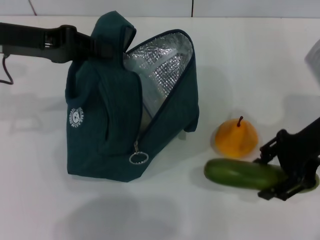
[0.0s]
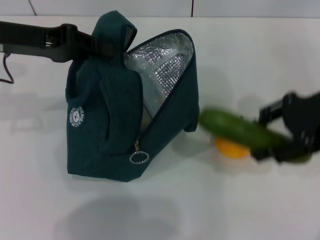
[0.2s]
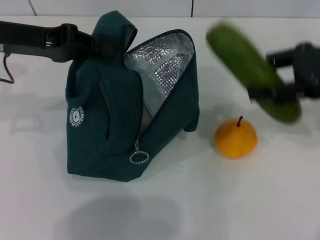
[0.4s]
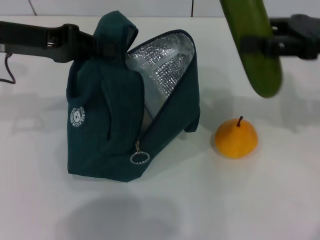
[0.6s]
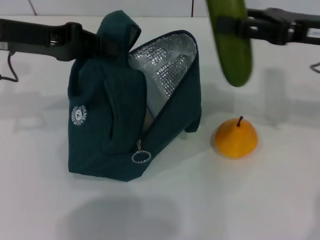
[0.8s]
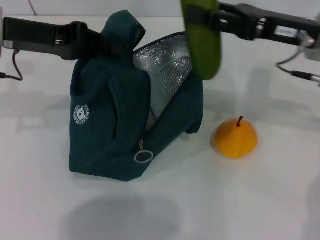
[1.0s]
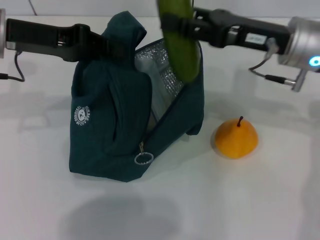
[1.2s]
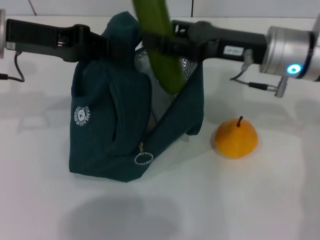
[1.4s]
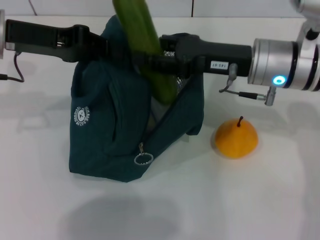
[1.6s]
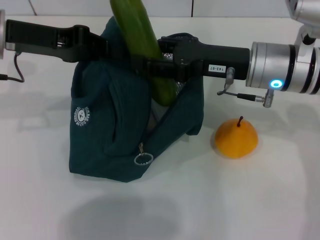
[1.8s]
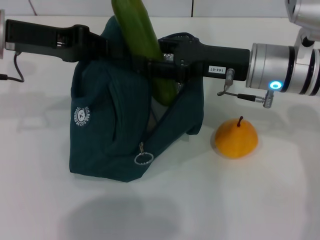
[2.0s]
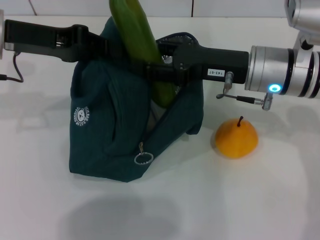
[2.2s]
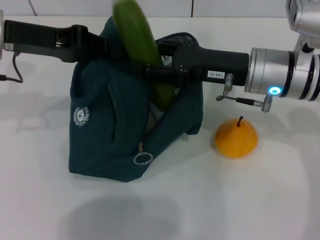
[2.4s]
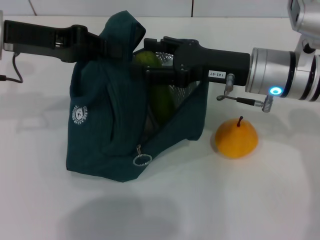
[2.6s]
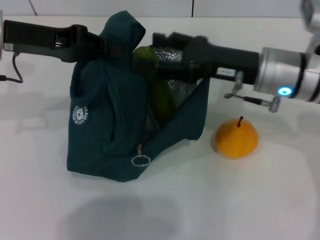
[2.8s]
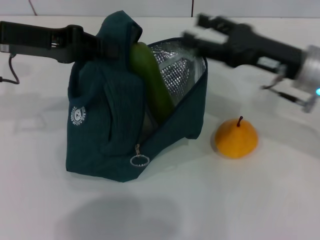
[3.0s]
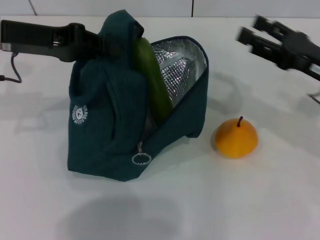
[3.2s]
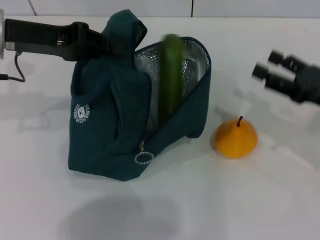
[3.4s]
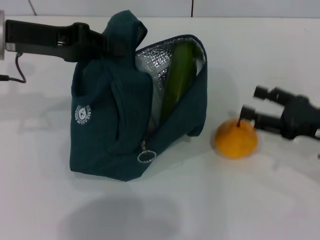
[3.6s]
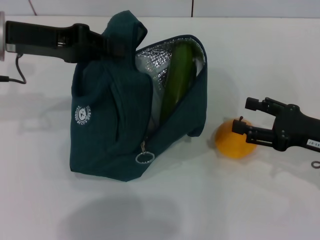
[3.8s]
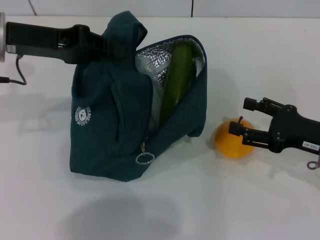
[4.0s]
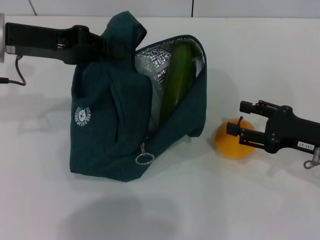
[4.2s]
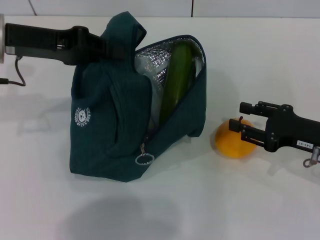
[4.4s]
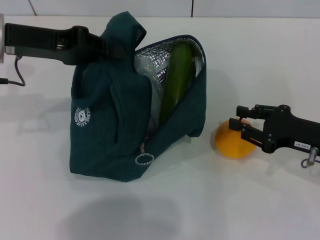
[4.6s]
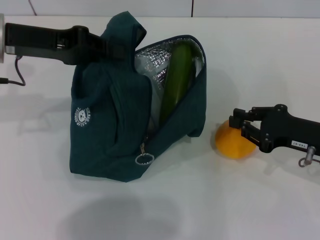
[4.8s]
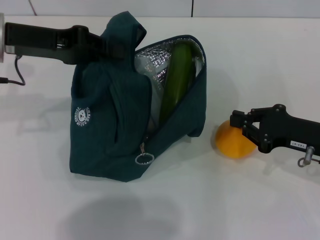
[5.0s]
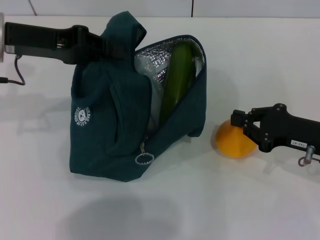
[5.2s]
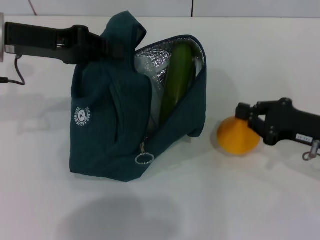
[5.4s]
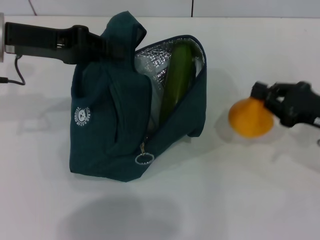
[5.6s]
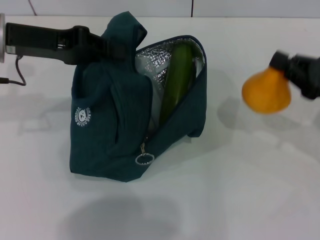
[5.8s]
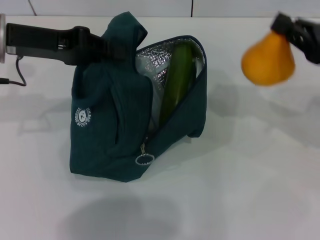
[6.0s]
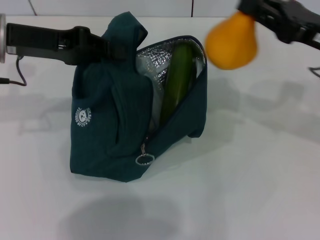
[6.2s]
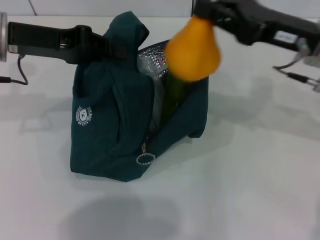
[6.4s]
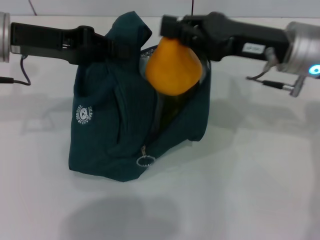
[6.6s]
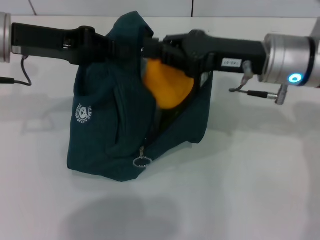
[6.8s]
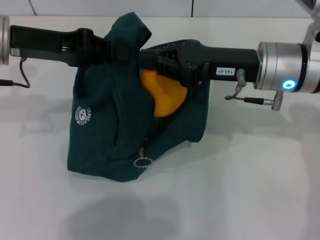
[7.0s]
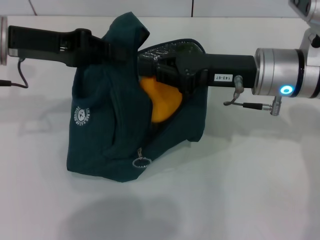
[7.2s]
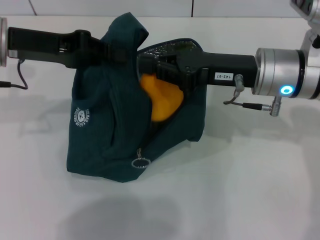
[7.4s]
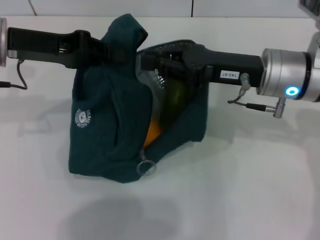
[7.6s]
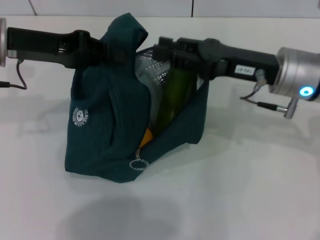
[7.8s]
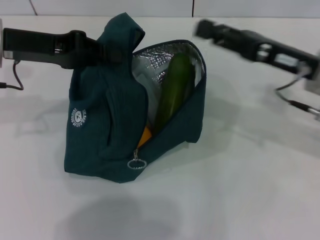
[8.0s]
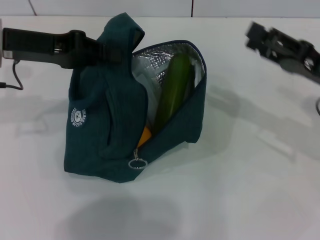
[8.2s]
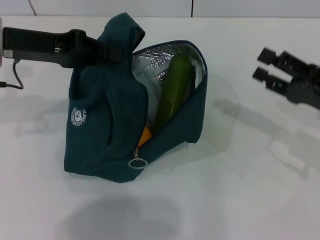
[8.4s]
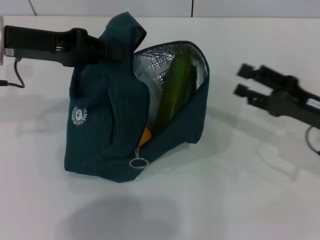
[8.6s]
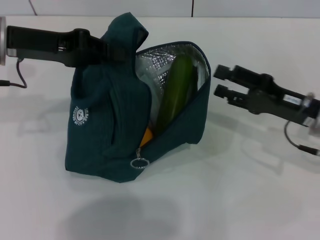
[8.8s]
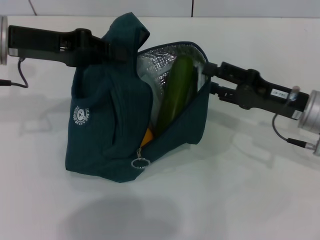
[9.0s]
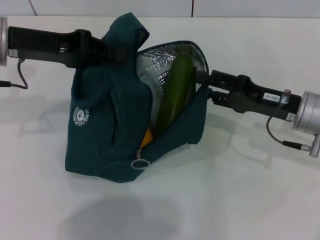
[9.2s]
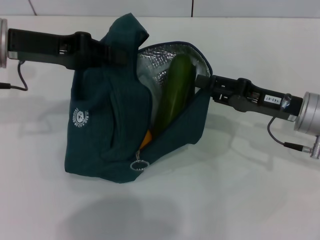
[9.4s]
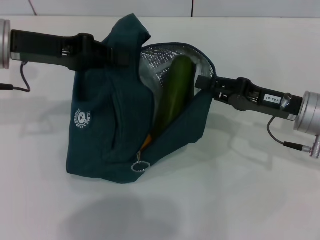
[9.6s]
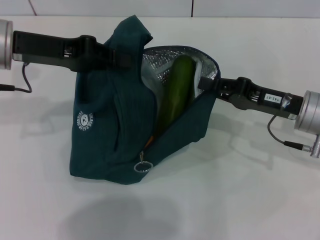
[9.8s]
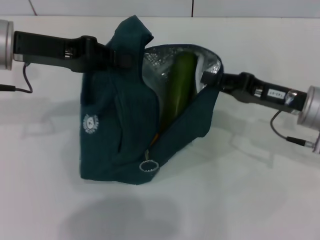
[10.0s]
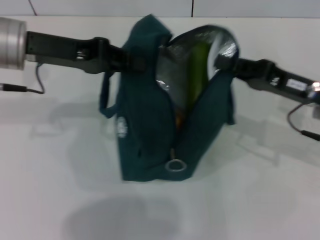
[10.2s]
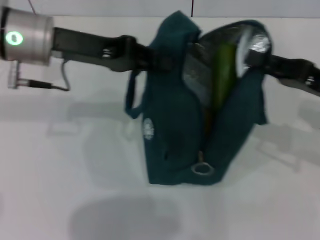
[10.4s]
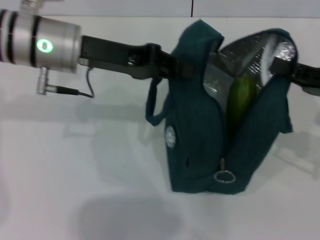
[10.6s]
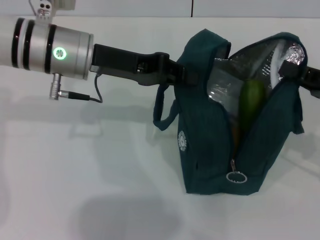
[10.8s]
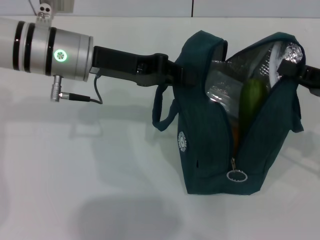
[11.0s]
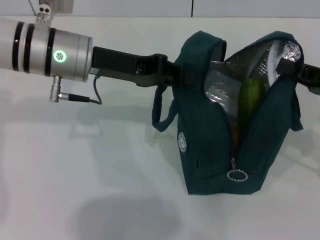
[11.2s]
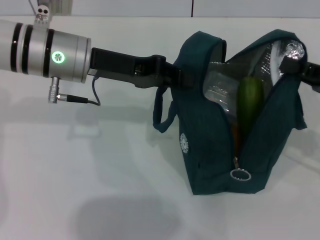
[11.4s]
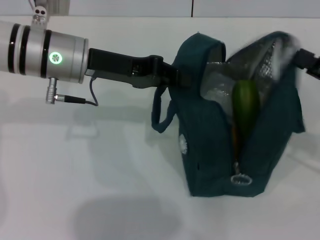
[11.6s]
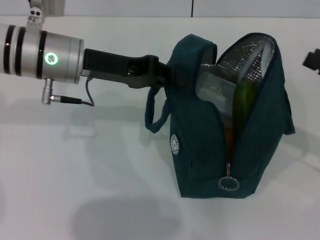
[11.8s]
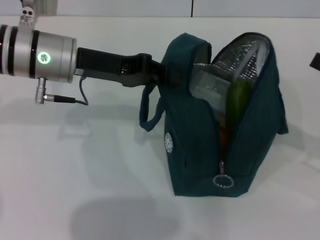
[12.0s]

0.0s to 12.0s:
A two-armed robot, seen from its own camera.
Step, 0.0s to 3.0s: Put the cucumber into the lunch bag with your right hand.
Step, 3.2s to 4.8s: Grab the pear with your right hand.
Step, 8.2s to 11.6s: Hold the lunch bag with your right hand.
0.0s to 1.6s: The right gripper heads to the left, covering roughly 10 cm.
1.6s to 3.0s: The right gripper travels to the right by some 5 cm.
3.0s to 4.4s: The right gripper shifts about 10 cm downward, to the right and backward.
4.4s to 6.0s: The right gripper is displaced upward by some 10 cm, and closes up.
6.0s to 7.6s: The right gripper heads to the left, covering about 15 cm.
7.6s to 9.0s: The right gripper travels to the right and downward by approximately 10 cm, and opens its fingers.
9.0s to 10.4s: The right gripper ends up about 5 cm from where it was, and closes. The left gripper goes approximately 5 cm to the right.
10.4s to 12.0s: The right gripper shifts approximately 10 cm to the right, and opens up.

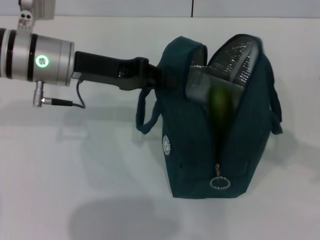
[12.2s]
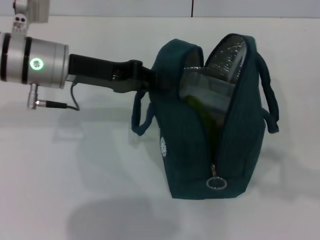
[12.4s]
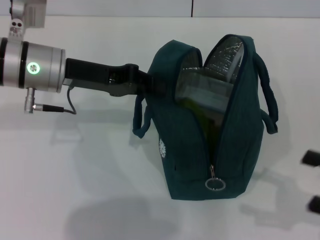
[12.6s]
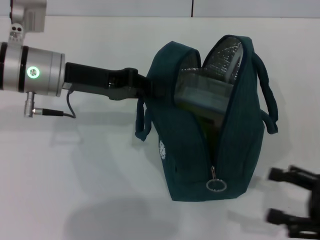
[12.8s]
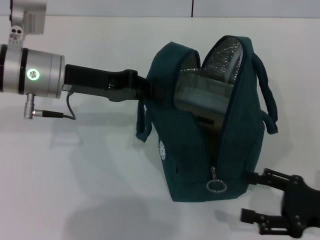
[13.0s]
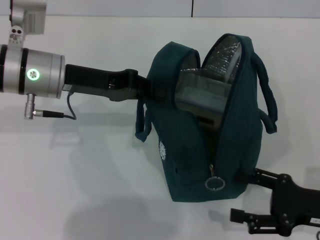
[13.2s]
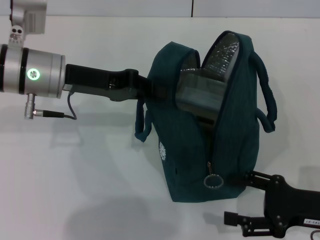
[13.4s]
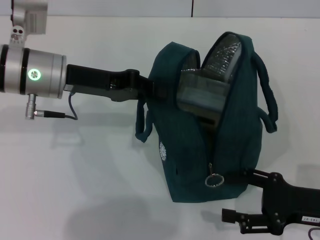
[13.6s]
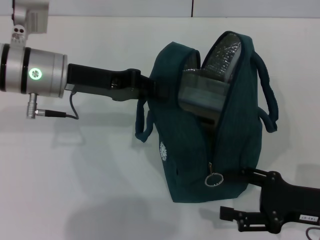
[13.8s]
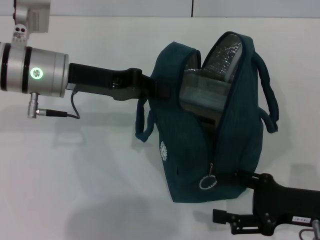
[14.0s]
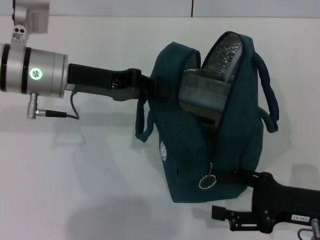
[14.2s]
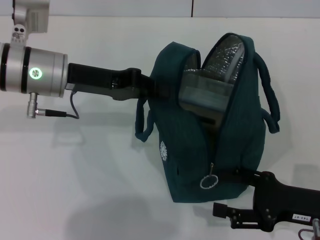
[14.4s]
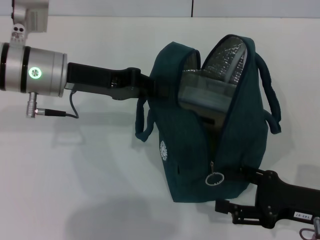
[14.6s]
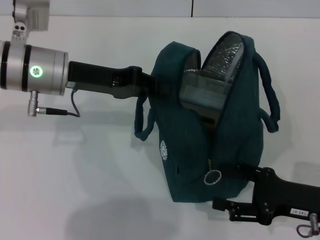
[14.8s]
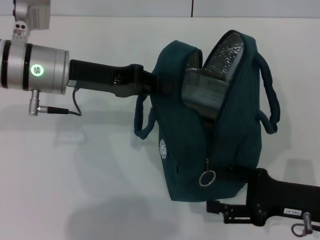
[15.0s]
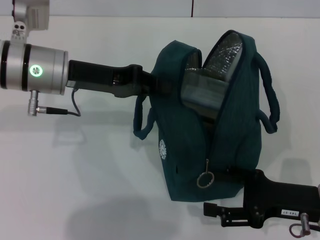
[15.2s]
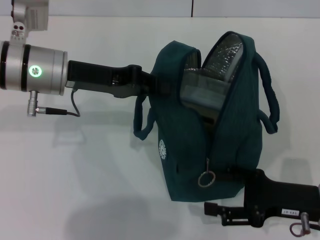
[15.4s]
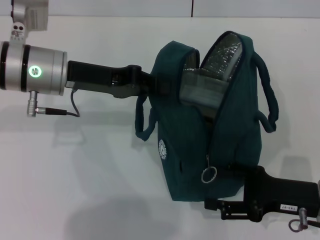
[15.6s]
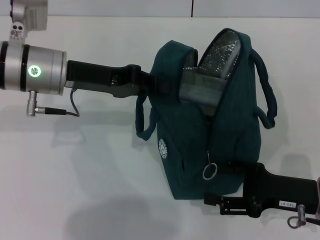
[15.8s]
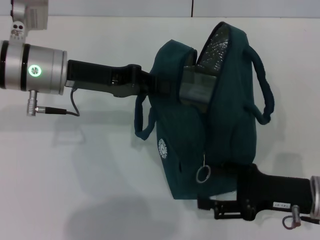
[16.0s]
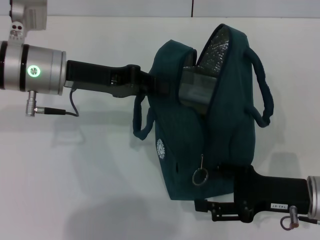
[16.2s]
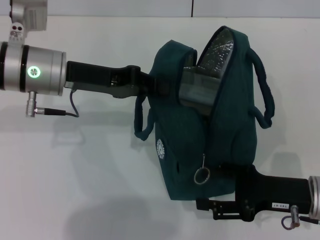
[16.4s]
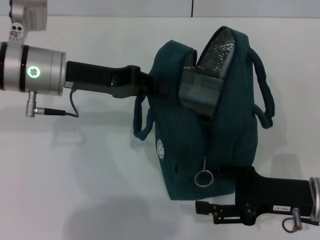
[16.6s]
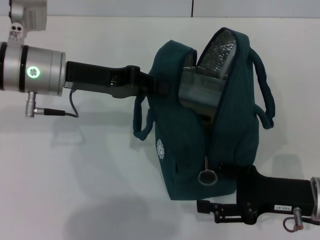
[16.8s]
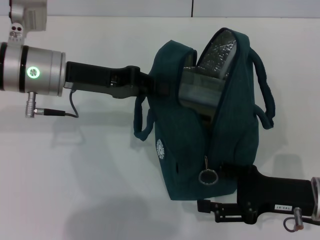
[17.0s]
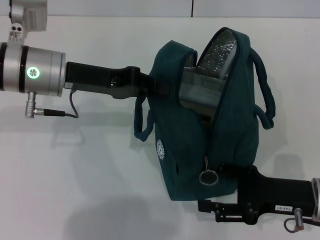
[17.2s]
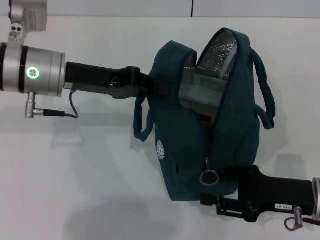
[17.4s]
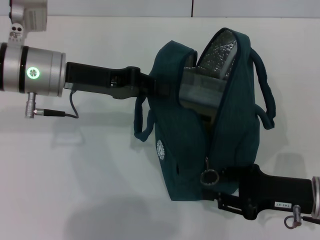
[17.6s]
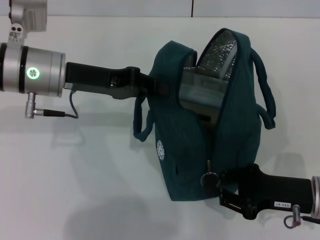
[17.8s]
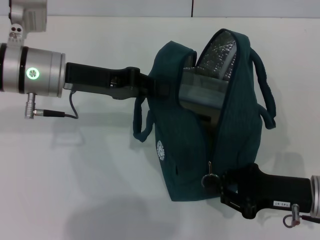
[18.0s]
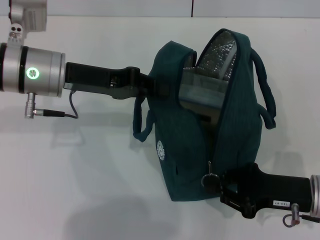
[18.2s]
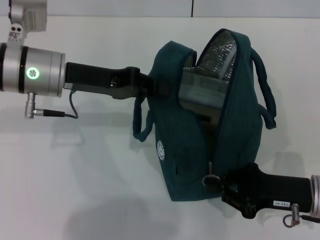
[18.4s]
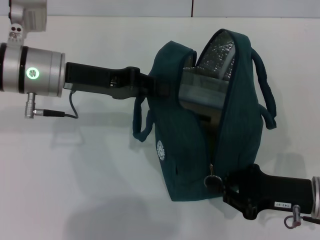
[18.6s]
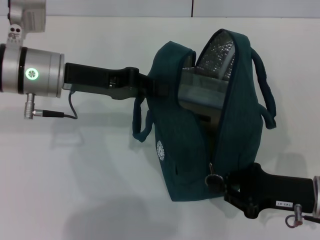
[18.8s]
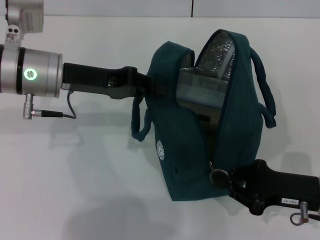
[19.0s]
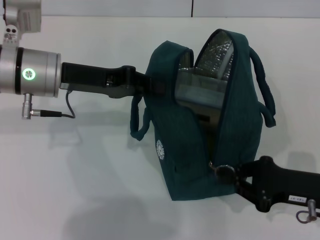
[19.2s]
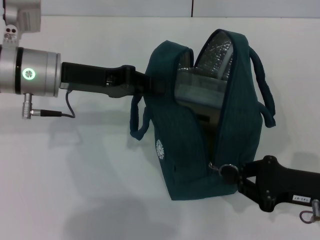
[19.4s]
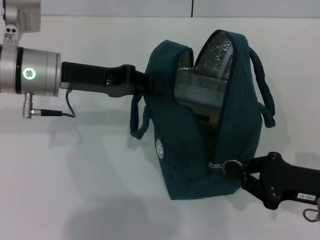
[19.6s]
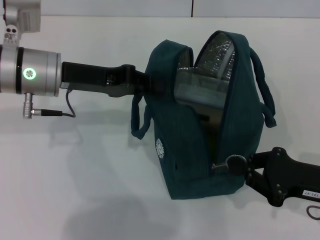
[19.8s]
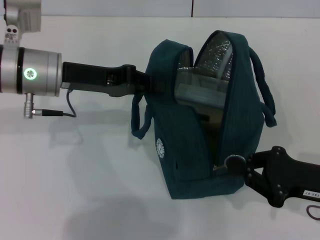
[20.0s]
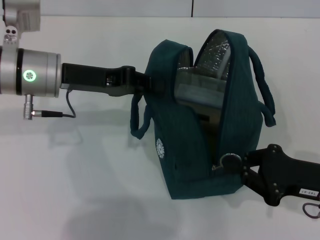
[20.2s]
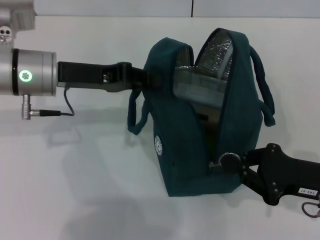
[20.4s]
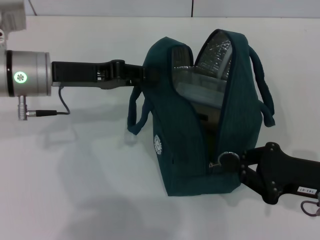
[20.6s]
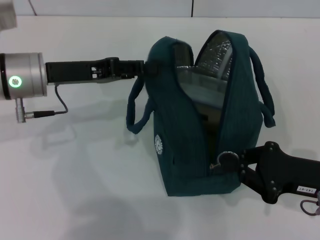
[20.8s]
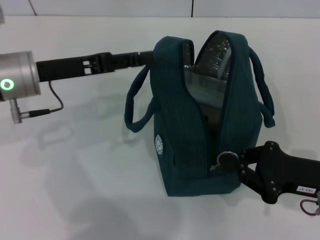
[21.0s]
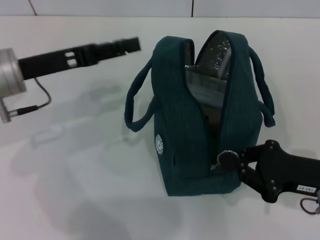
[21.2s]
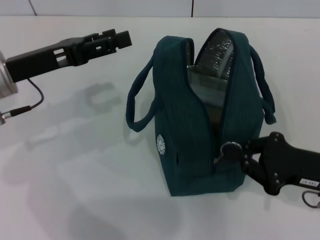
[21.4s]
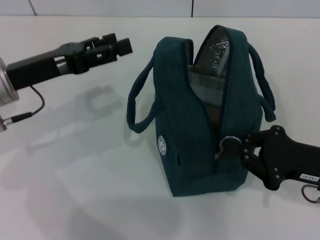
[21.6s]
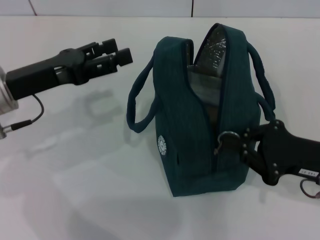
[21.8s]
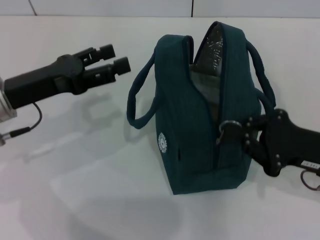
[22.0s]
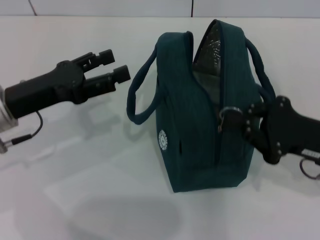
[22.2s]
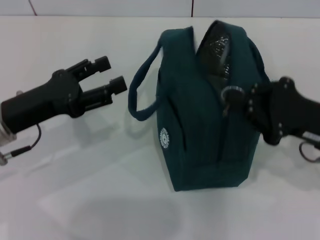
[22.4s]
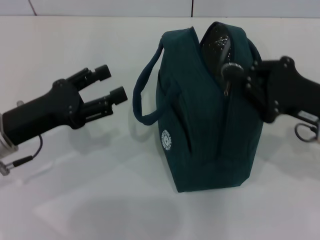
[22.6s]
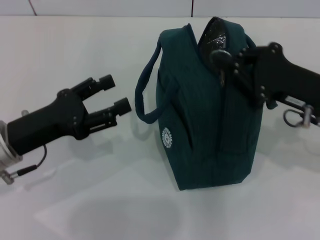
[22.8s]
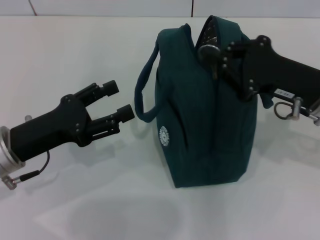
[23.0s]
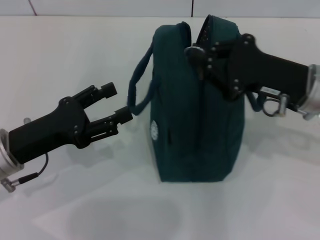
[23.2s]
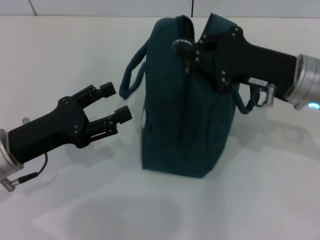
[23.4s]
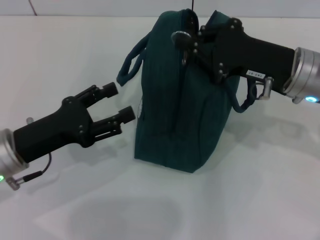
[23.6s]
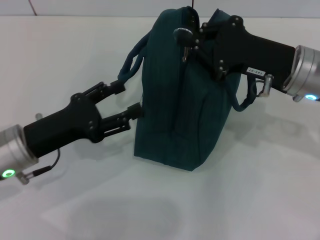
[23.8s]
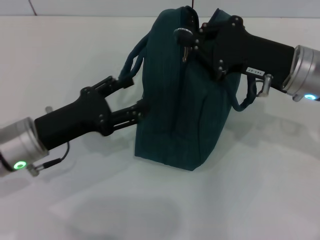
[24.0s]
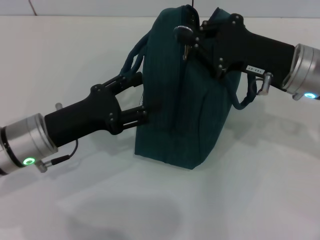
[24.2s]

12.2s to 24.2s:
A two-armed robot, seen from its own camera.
Step, 12.2s to 21.2s: Hold the lunch bag with your left hand.
12.2s to 13.8s: The right gripper heads downward and to the left, covering some 15 cm.
13.8s to 16.6s: The grippers move only a little.
16.6s to 18.2s: The right gripper closes up.
18.2s to 19.8s: The grippers move only a little.
19.8s to 21.2s: The left gripper changes place by approximately 5 cm, and opens.
21.2s to 22.6s: The left gripper heads backward and downward, covering some 10 cm, and opens its fingers. The right gripper shifts some 5 cm upward.
22.6s to 24.2s: The right gripper moves to the left and forward, some 10 cm.
